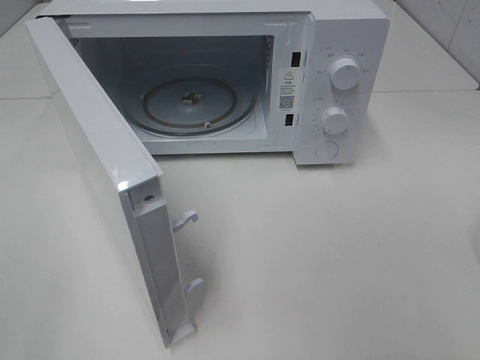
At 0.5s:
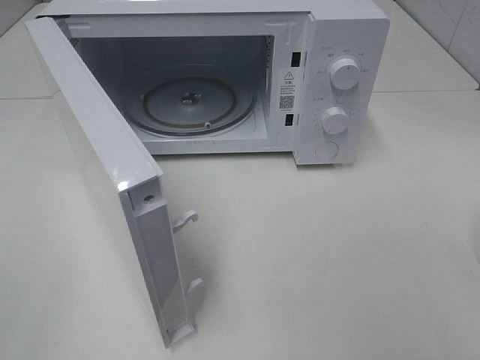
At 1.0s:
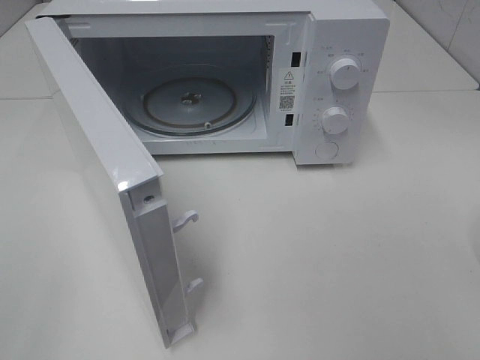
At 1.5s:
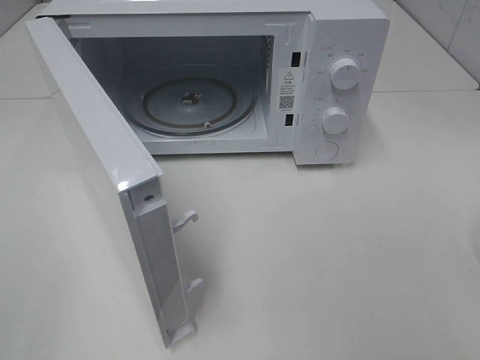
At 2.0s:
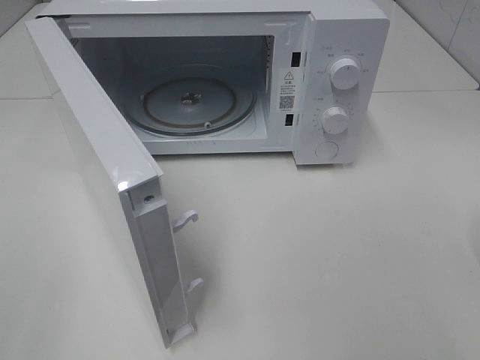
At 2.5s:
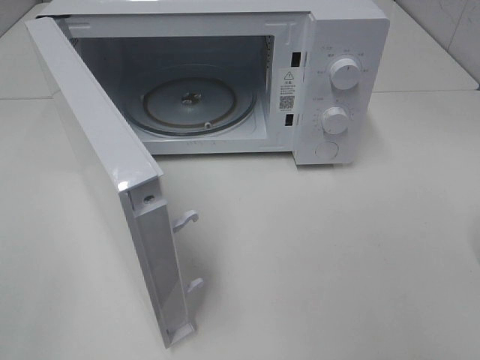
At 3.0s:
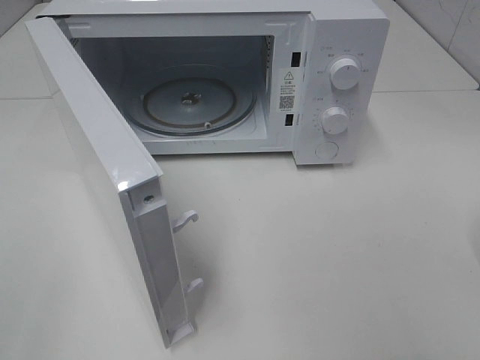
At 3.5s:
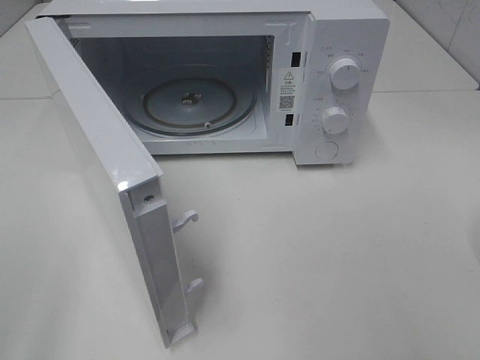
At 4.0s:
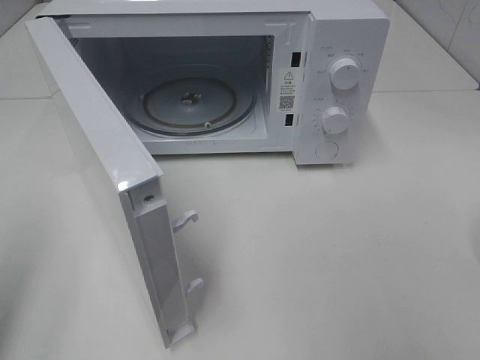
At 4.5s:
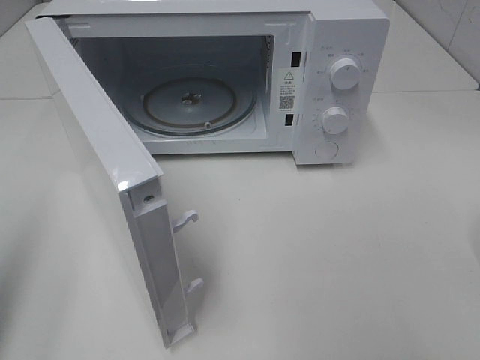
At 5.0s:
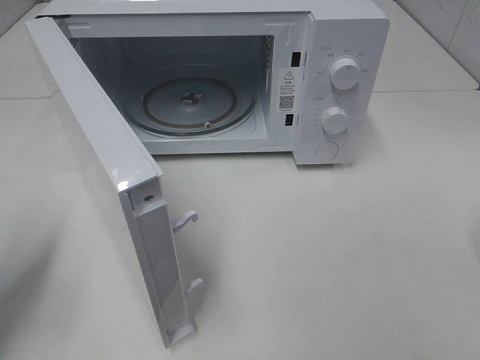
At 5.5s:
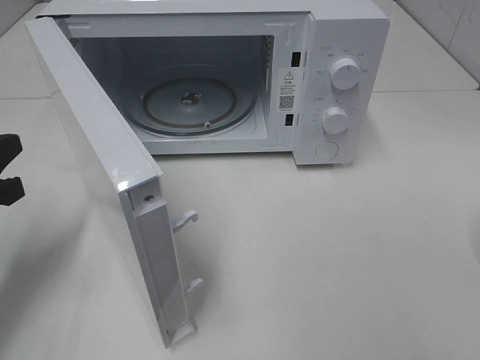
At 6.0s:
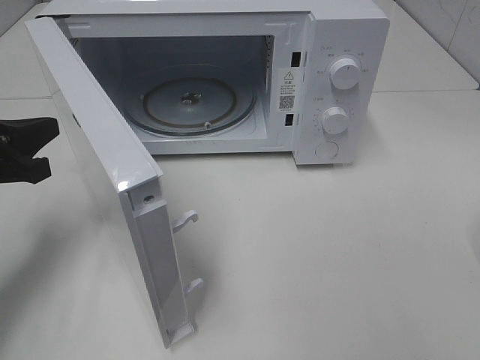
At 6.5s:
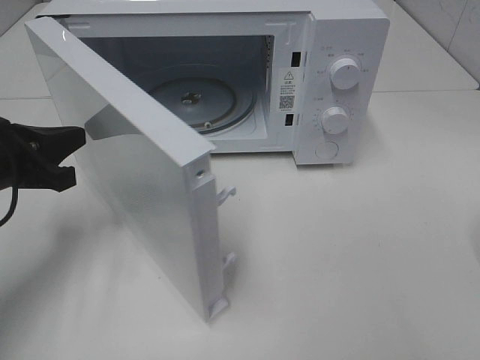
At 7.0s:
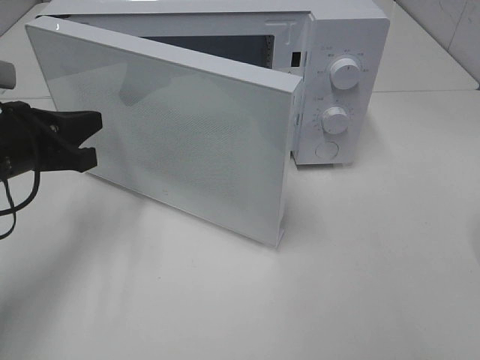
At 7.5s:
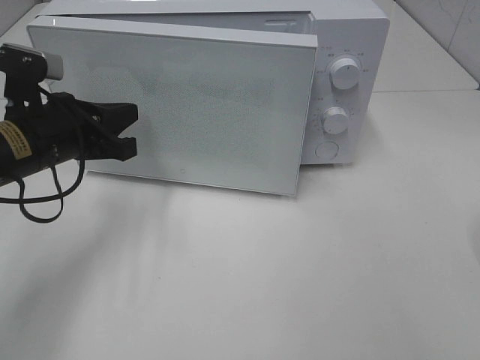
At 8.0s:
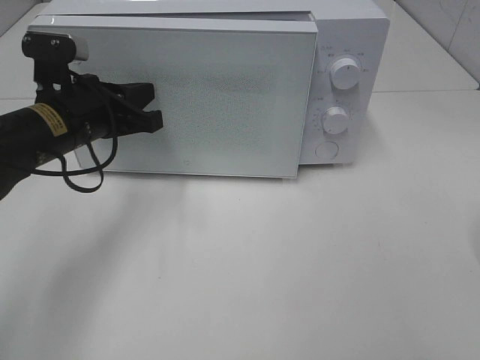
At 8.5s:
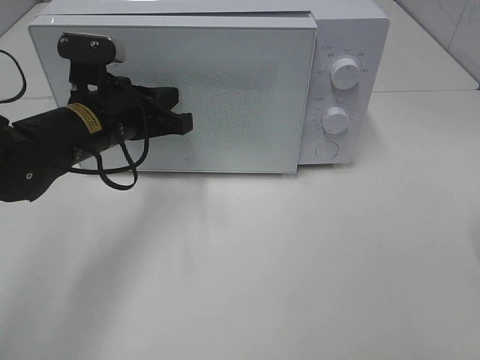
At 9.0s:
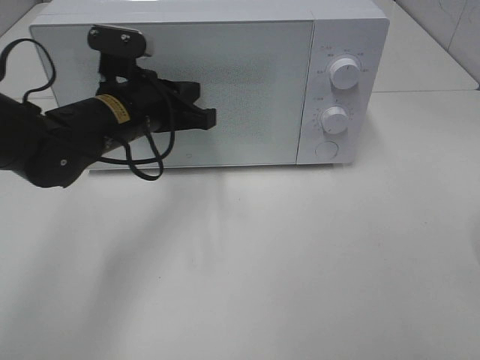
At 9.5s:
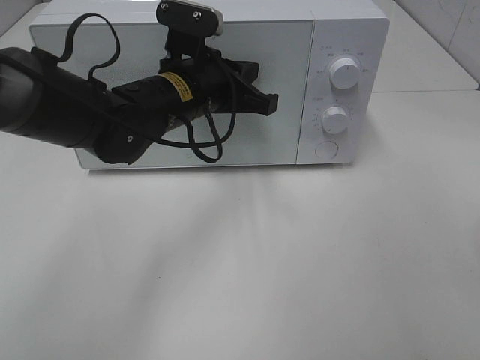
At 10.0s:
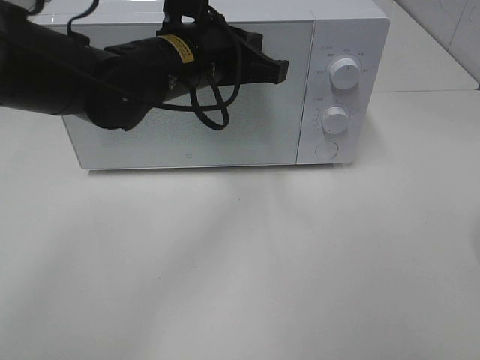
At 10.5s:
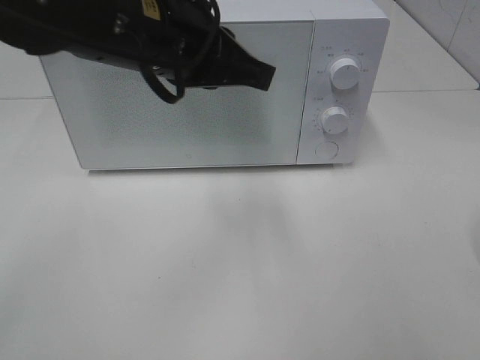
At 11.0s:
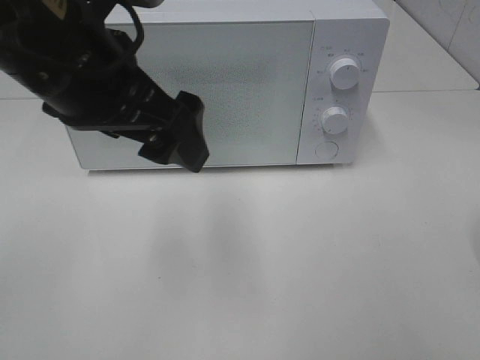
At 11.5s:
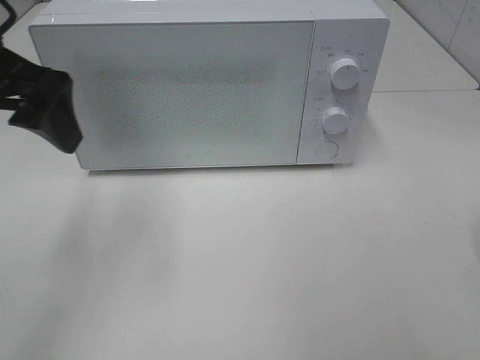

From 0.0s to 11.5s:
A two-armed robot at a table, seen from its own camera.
Task of the whole recording: Heat the burger.
Step, from 0.0s to 9.0s: Left hand: close the microwave door.
From 2.0s to 4.0s: The left gripper heads forward, covering some 10 cm, and closes up.
From 4.0s to 6.0s: The left gripper moves forward and downward, about 20 cm.
From 6.0s to 7.5s: The left gripper heads to the right, covering roughly 10 cm.
From 7.5s to 9.5s: The left gripper travels to the right by about 15 cm.
From 9.5s to 11.5s: The left gripper goes about 25 cm to the left, upward and backward, and opens.

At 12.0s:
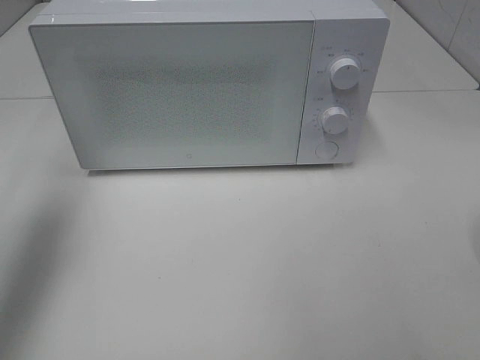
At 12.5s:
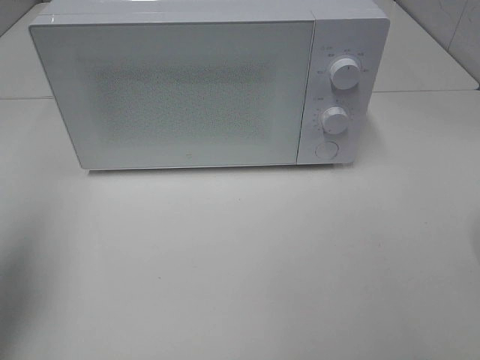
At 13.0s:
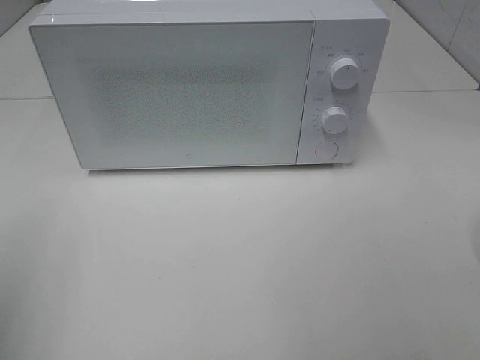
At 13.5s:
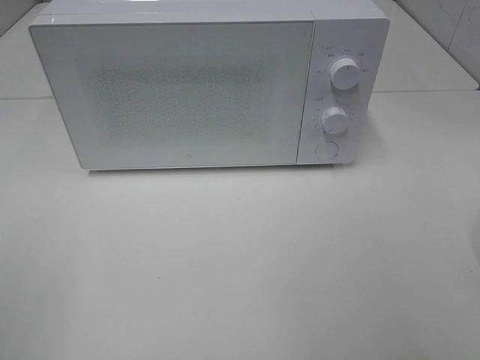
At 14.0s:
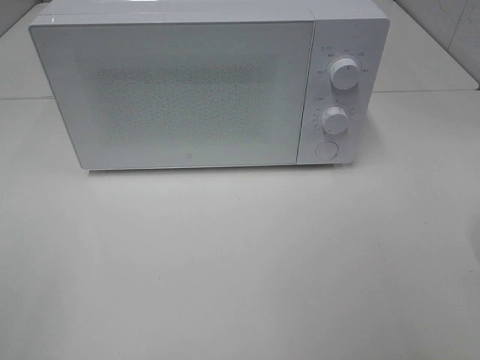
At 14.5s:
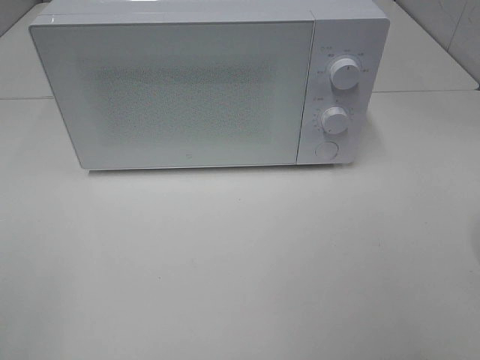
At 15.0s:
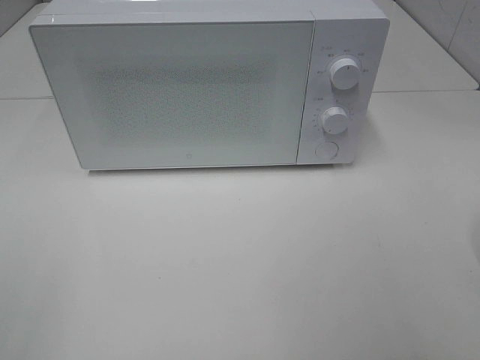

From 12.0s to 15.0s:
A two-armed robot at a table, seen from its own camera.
Task of the whole recording: Heat the burger.
From 12.0s to 13.5s: The left gripper travels backward by about 25 cm.

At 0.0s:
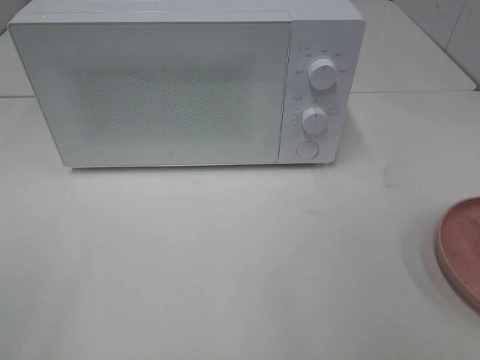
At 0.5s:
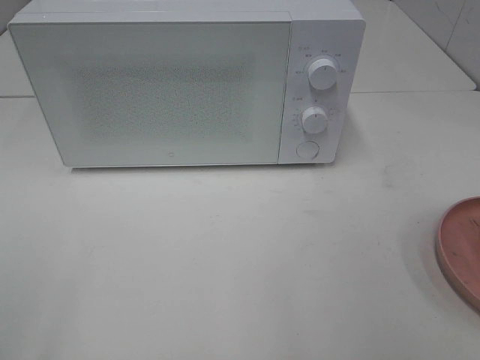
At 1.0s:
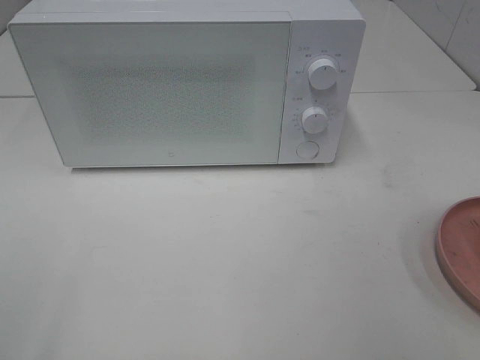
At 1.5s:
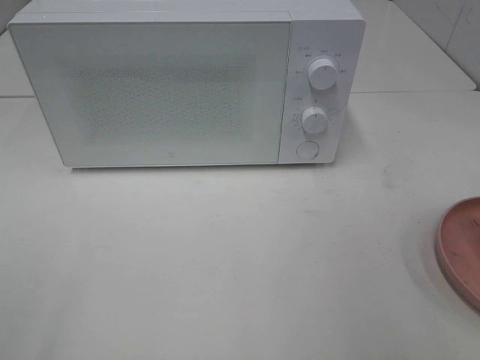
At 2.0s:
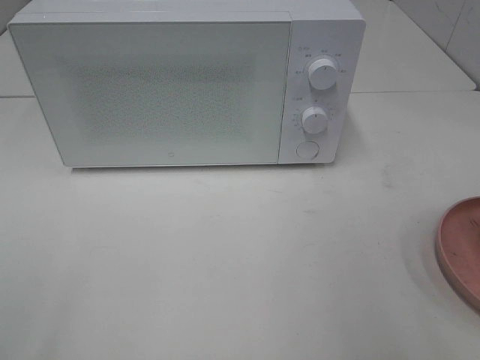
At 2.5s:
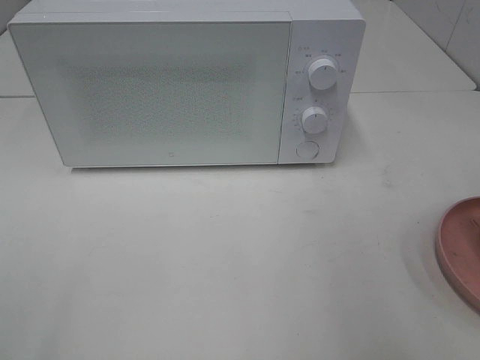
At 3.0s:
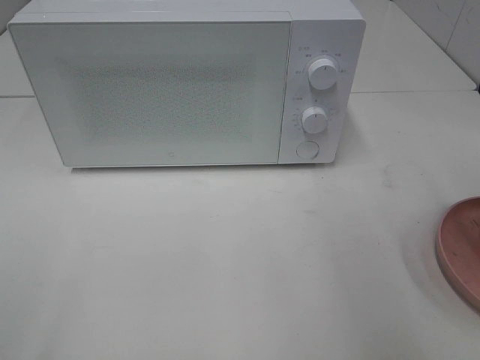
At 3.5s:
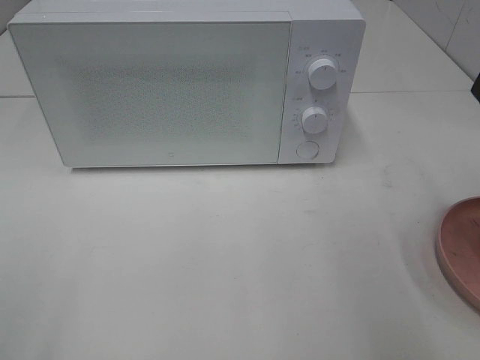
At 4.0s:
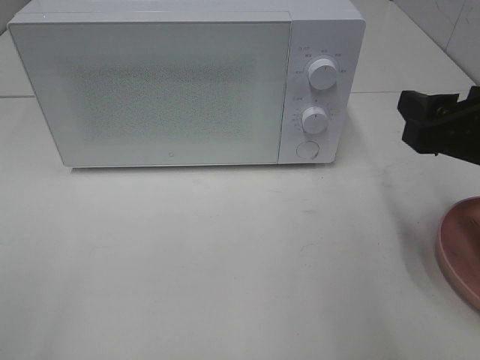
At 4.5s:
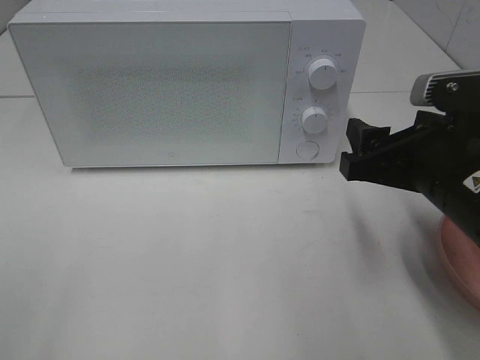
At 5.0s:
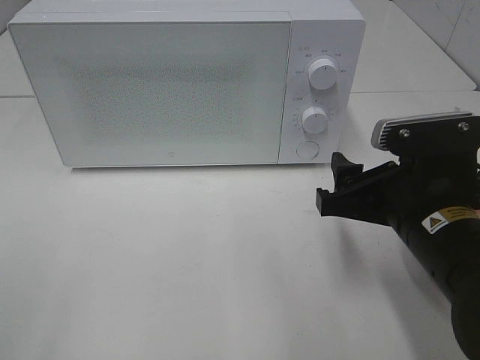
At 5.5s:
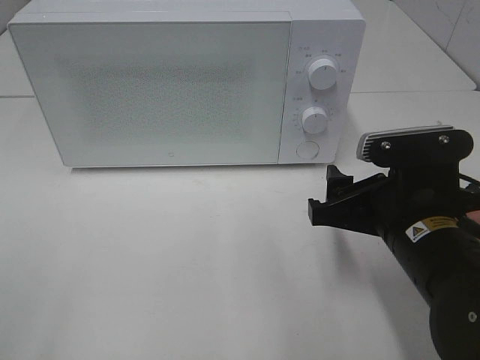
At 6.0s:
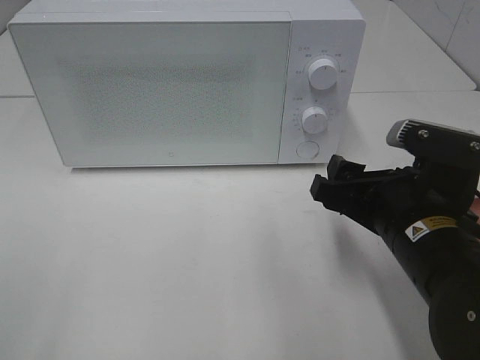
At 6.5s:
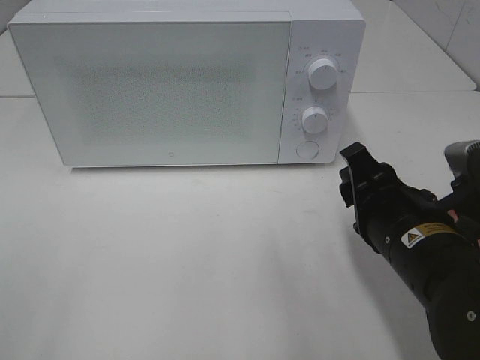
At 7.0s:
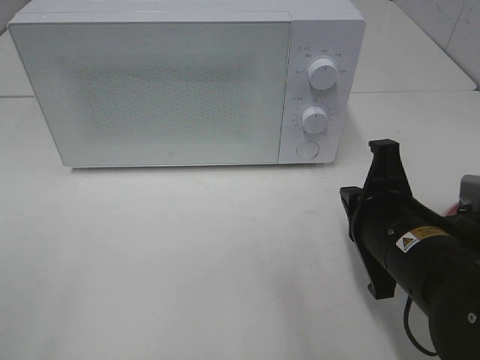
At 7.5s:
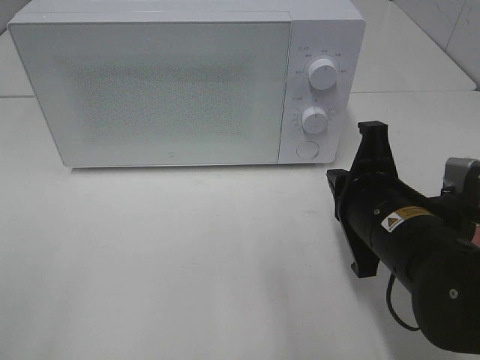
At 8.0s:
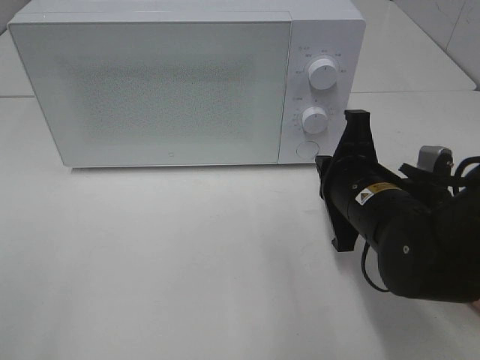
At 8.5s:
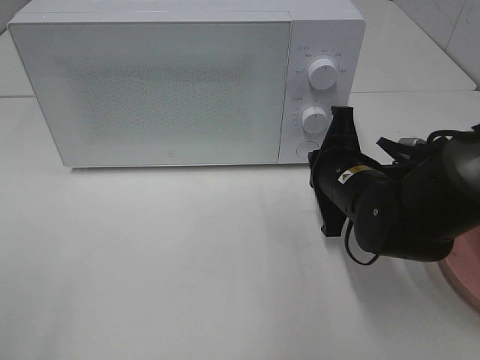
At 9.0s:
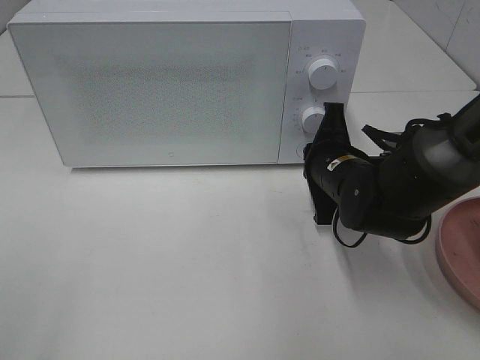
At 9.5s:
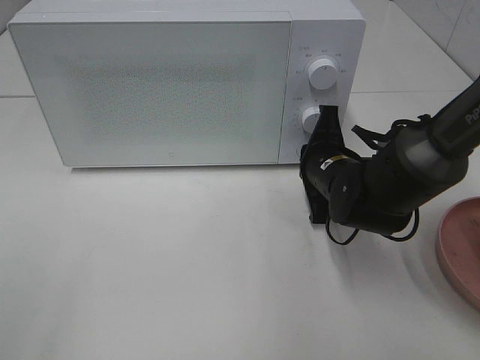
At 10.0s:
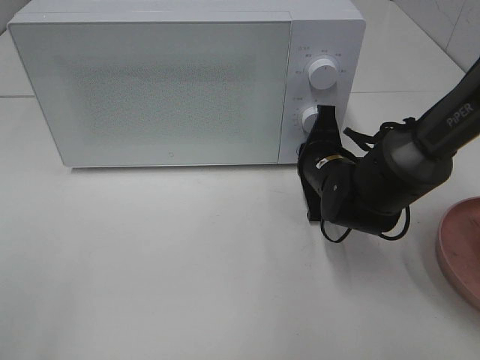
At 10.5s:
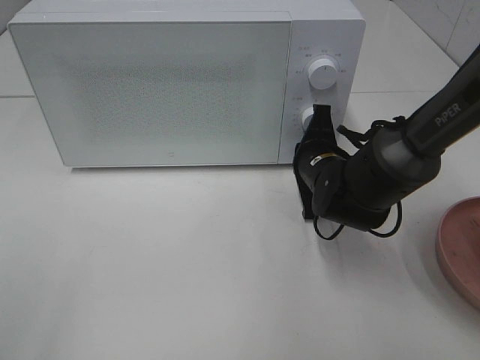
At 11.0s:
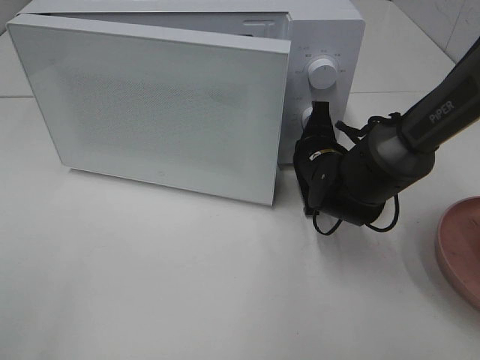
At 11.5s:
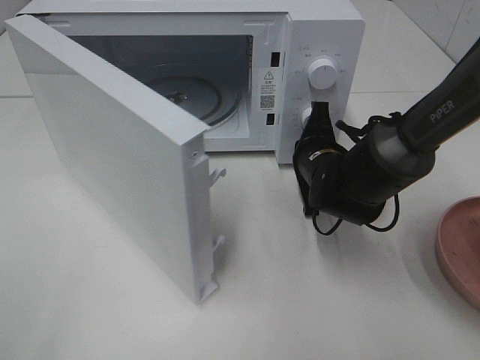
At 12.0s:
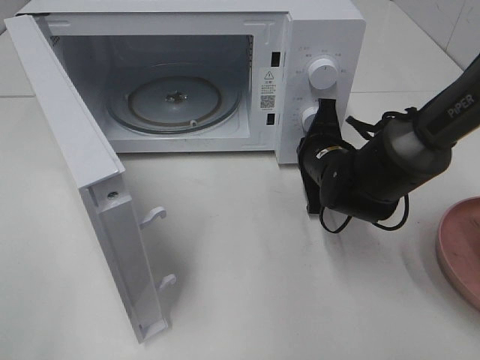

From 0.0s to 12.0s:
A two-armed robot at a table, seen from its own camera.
Task of the whole recording: Heat the burger.
From 2.0s to 4.0s: The right gripper is displaced forward, downward and to the left by approximately 15 cm.
From 4.0s to 6.0s: The right gripper is displaced to the left and downward by about 10 cm.
From 6.0s to 8.0s: The right gripper heads forward, covering roughly 5 cm, and closes.
From 8.0s to 10.0s: The right gripper shifts approximately 10 cm forward.
